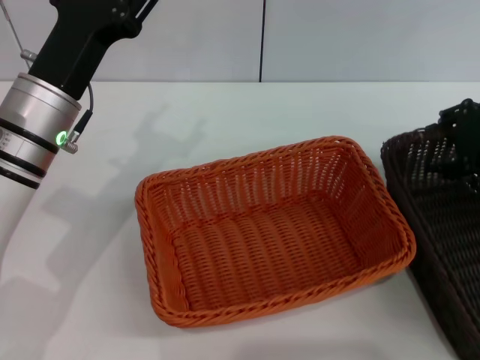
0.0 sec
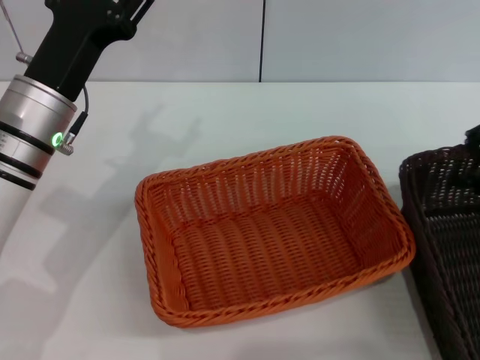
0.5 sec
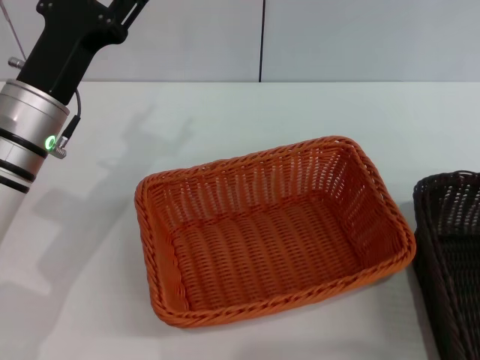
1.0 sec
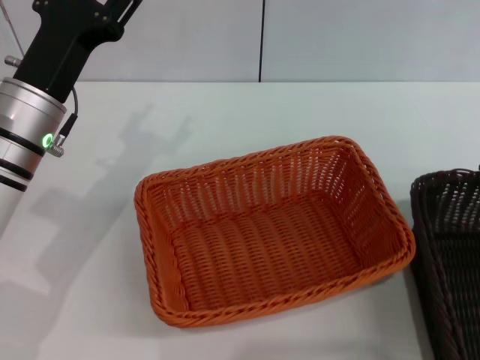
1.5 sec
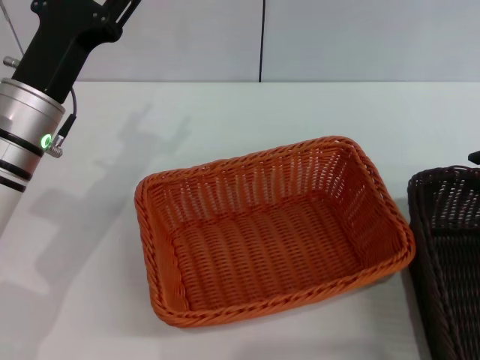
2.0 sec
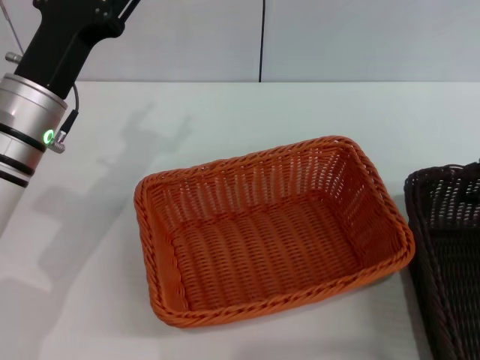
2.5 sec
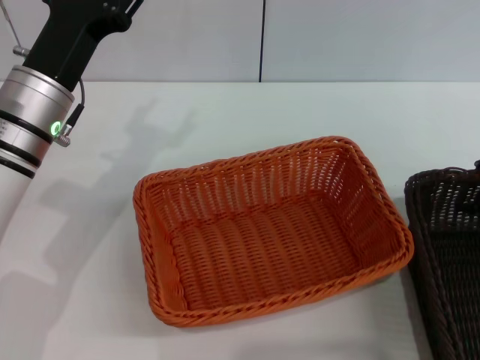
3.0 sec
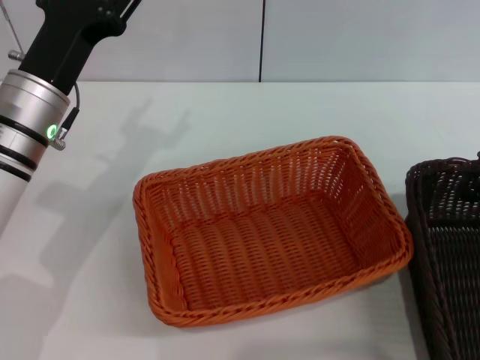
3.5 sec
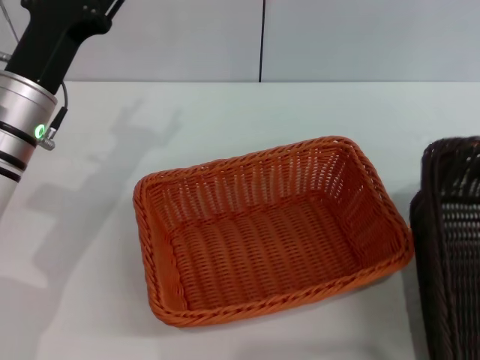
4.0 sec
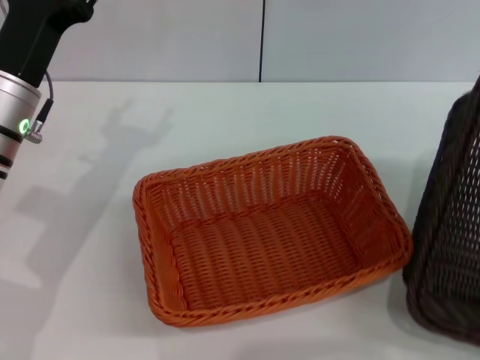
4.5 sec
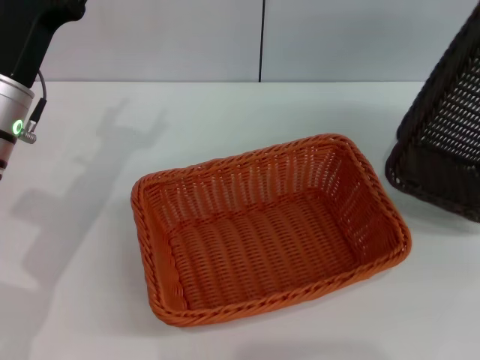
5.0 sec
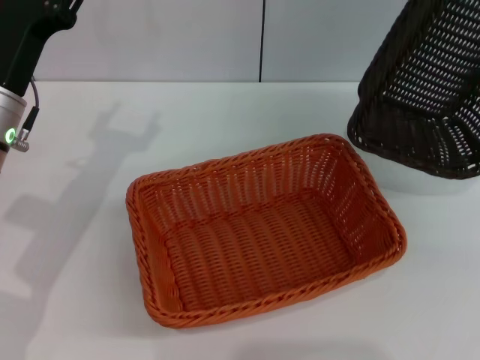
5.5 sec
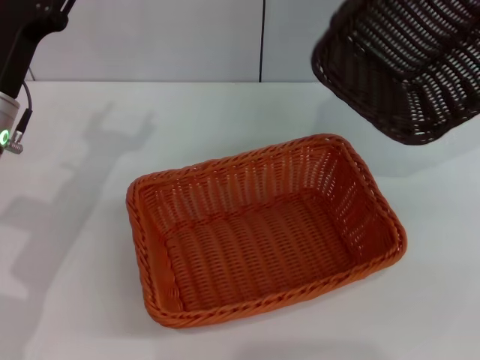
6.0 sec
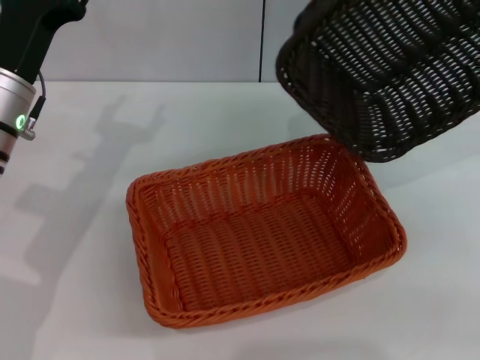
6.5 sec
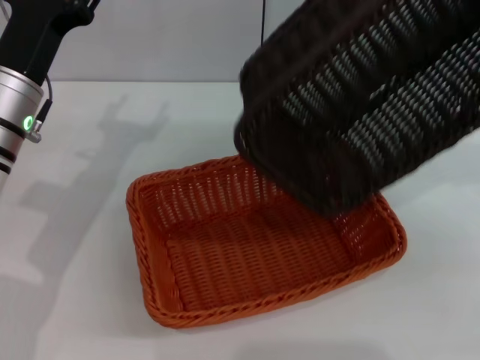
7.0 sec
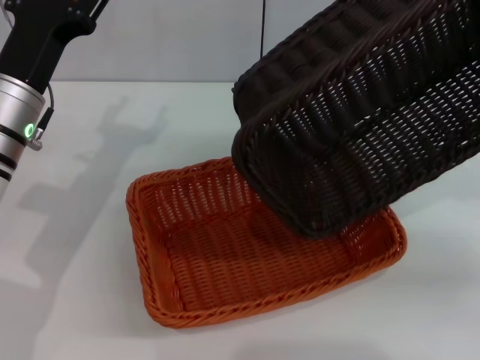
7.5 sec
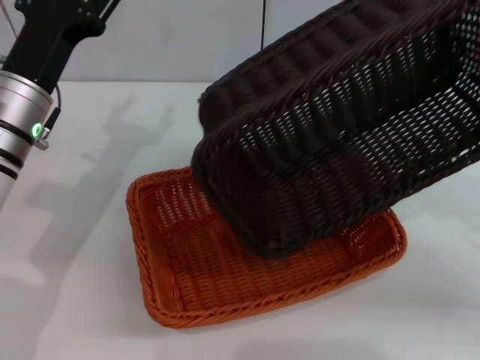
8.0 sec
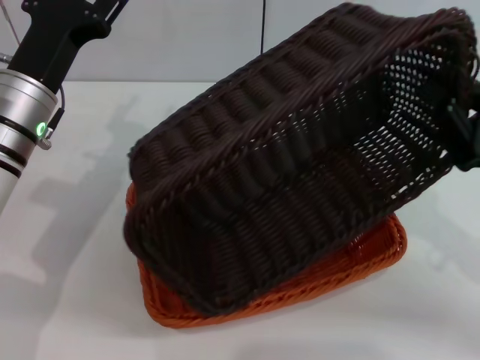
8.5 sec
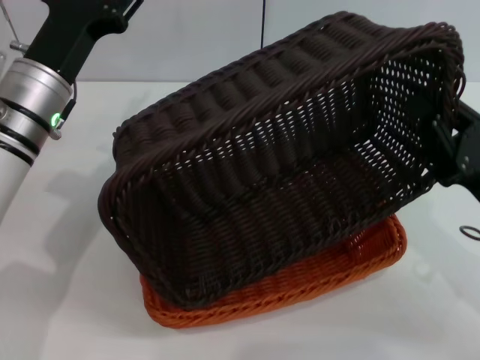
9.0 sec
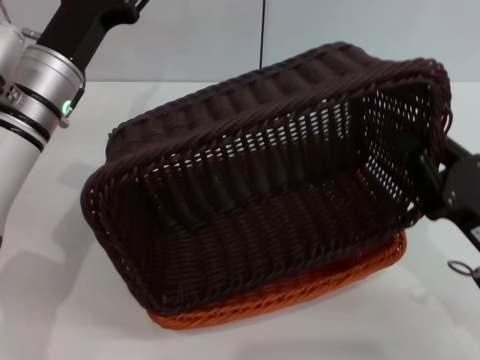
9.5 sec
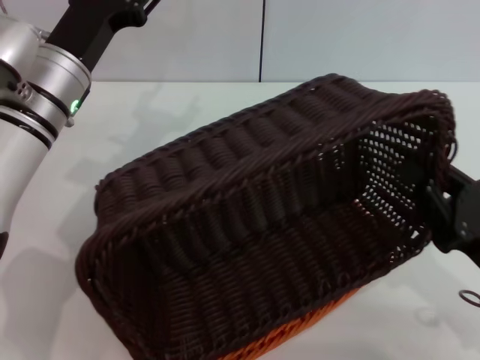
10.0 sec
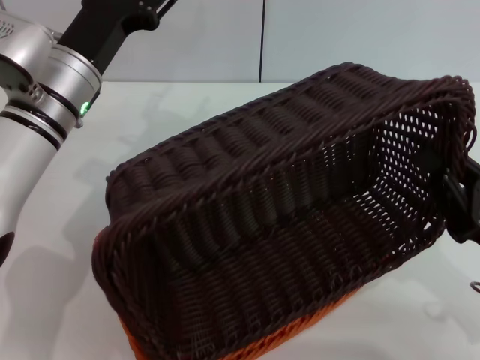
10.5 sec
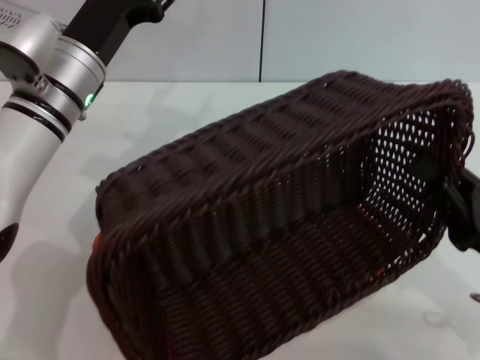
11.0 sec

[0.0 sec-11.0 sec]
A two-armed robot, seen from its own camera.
Step, 0.0 sec to 3.5 sec: Pick up the dark basket with the right gripper.
0.0 sec to 2.0 sec: The right gripper moves backward, about 5 cm, and closes up.
2.0 sec to 3.5 sec: The grippers stay close to where they were, moving slightly.
3.5 sec to 5.5 sec: The right gripper shifts roughly 15 cm upward and to the right, and closes.
5.5 sec to 7.5 sec: The right gripper heads downward and backward, covering roughly 15 cm.
7.5 sec to 9.0 sec: The right gripper shifts some 15 cm to the left and downward.
9.0 sec to 11.0 sec: The right gripper ends up roughly 5 cm from where it was.

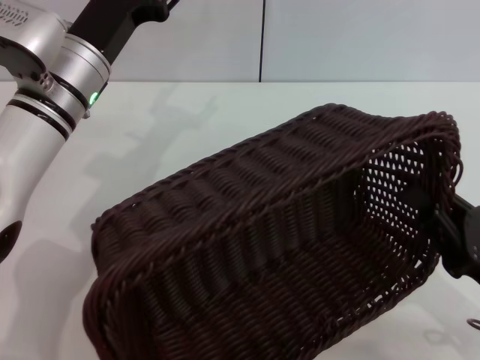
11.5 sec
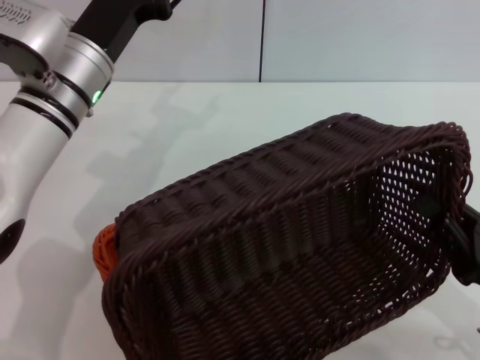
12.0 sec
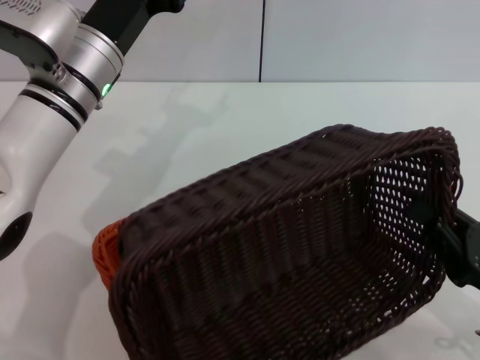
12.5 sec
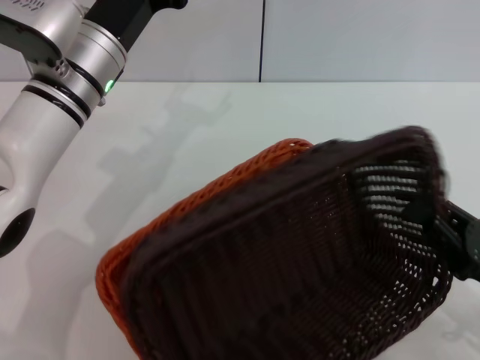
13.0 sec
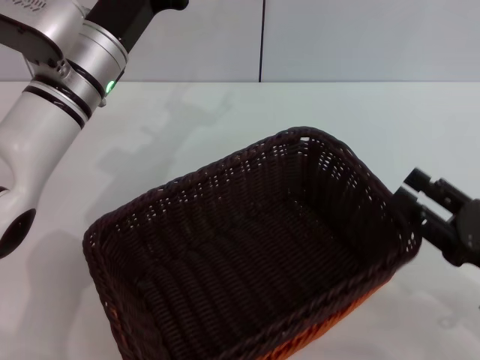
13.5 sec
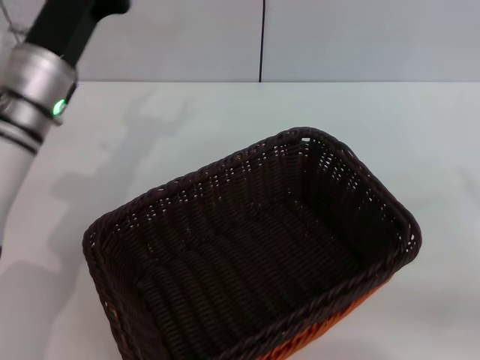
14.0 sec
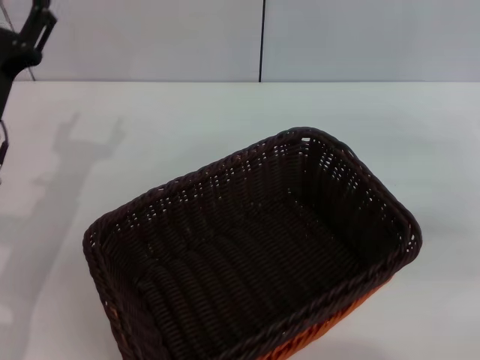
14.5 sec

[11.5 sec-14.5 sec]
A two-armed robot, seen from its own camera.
13.0 sec to 14.5 sec: The left gripper heads to the left and backward, covering about 10 cm. The right gripper shifts roughly 20 cm forward, to the right and upward, and opens up.
